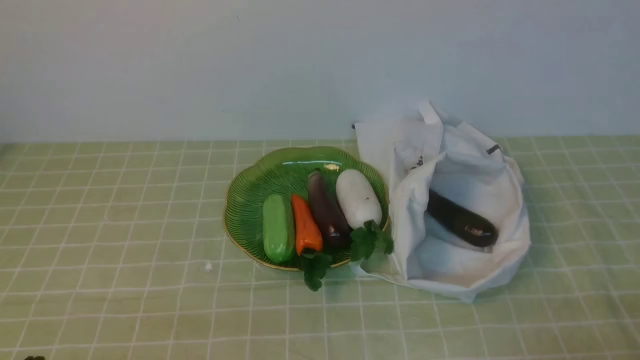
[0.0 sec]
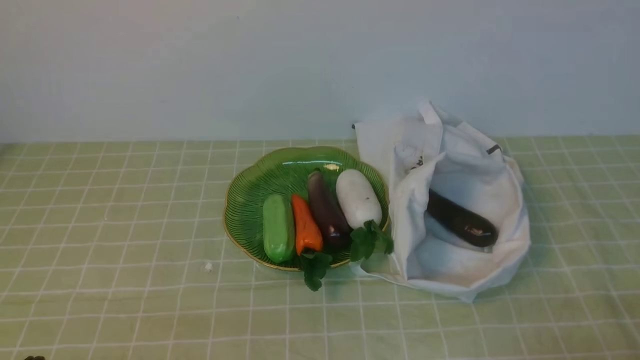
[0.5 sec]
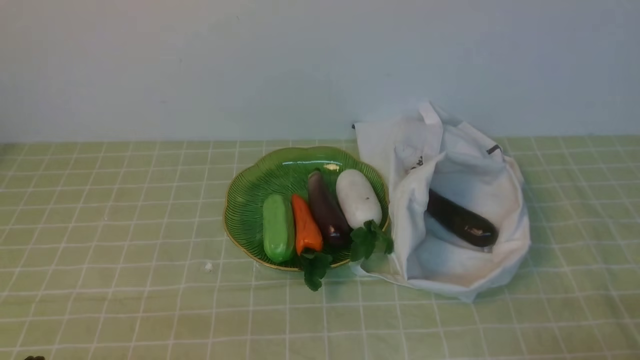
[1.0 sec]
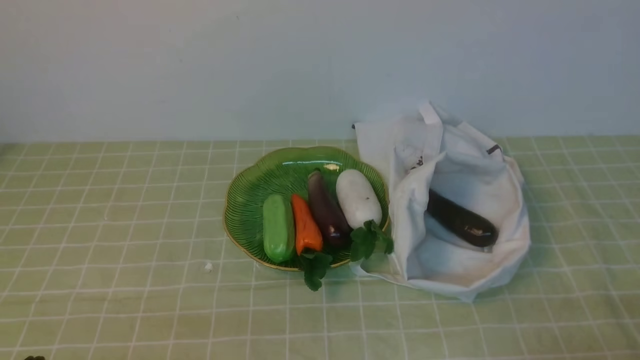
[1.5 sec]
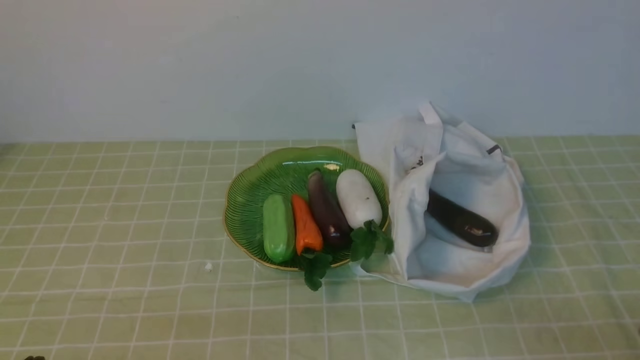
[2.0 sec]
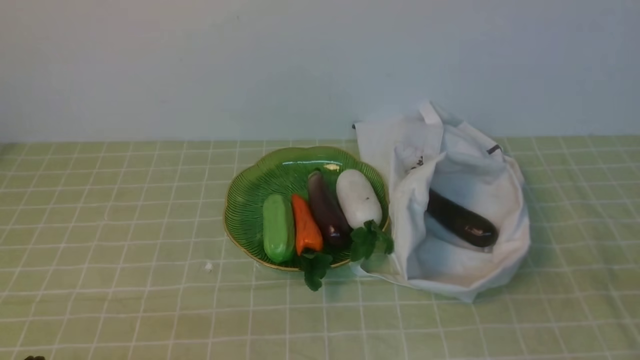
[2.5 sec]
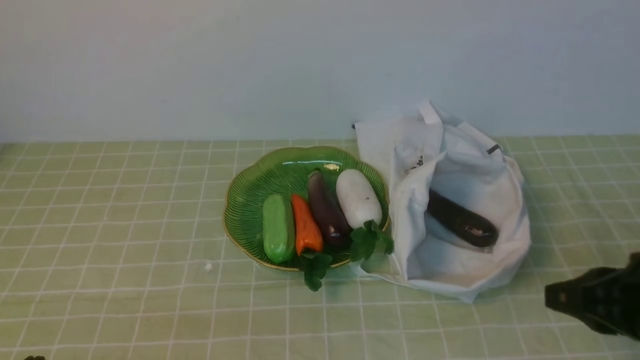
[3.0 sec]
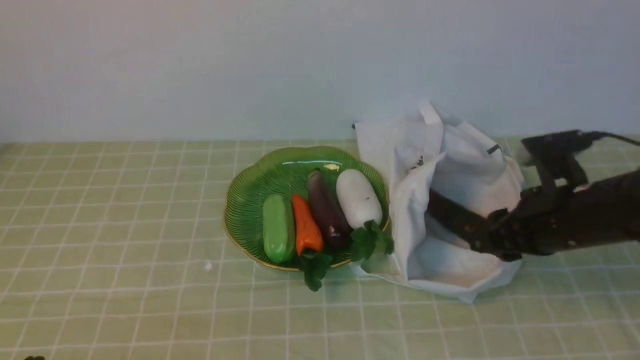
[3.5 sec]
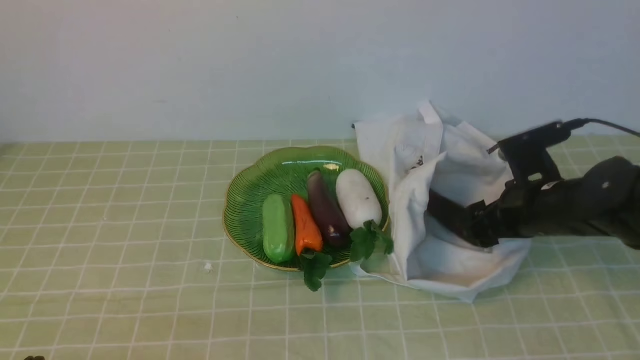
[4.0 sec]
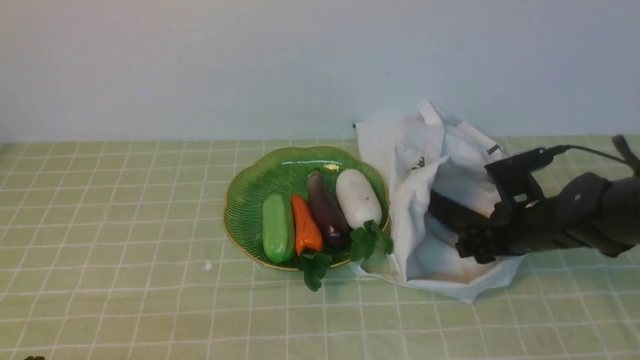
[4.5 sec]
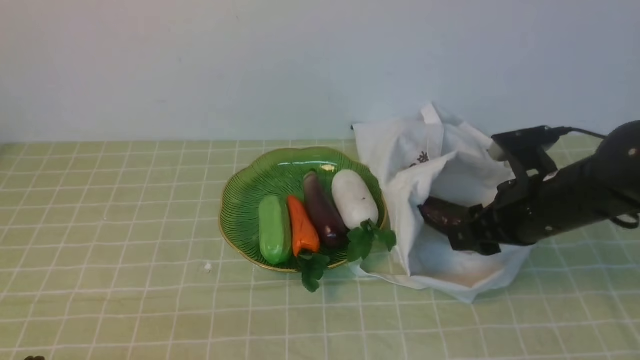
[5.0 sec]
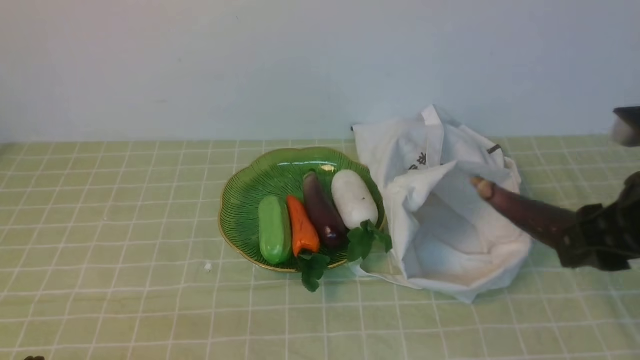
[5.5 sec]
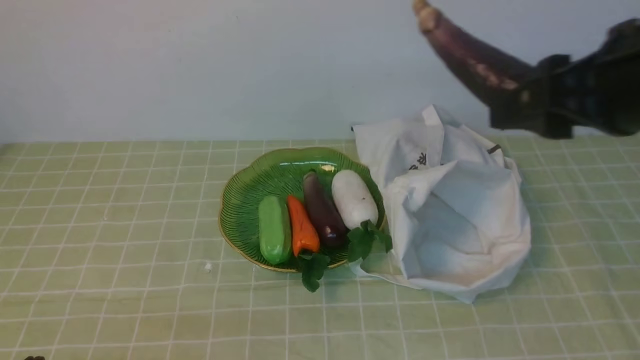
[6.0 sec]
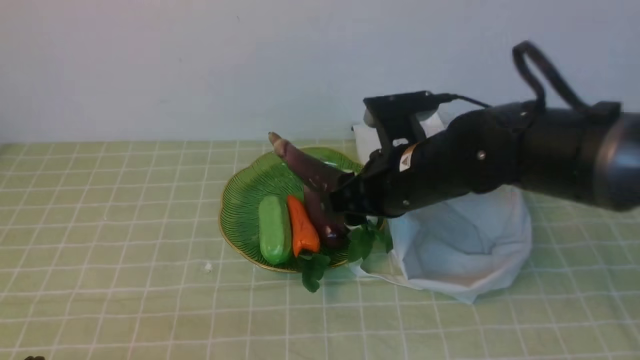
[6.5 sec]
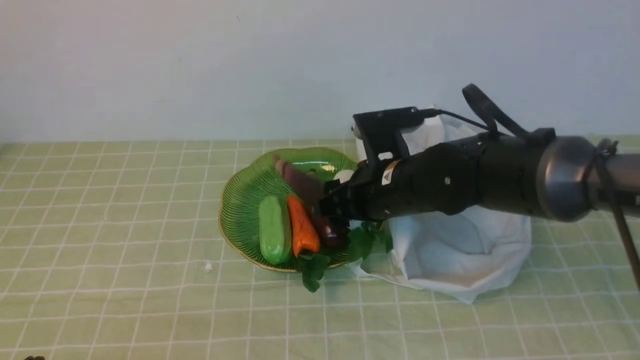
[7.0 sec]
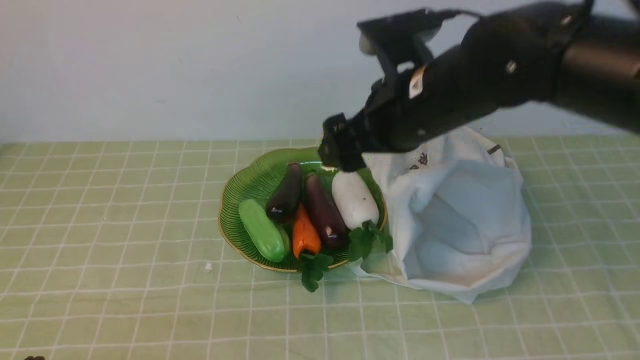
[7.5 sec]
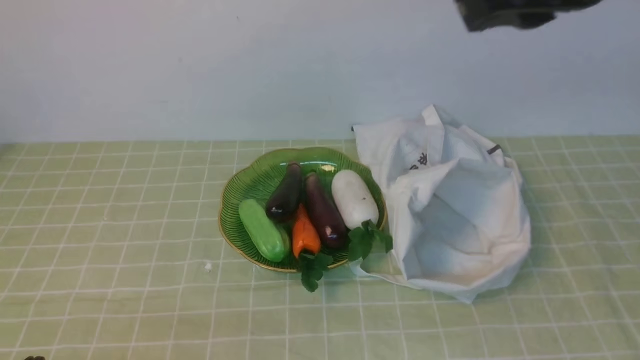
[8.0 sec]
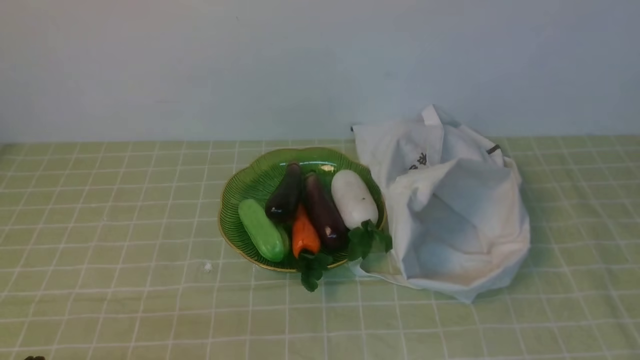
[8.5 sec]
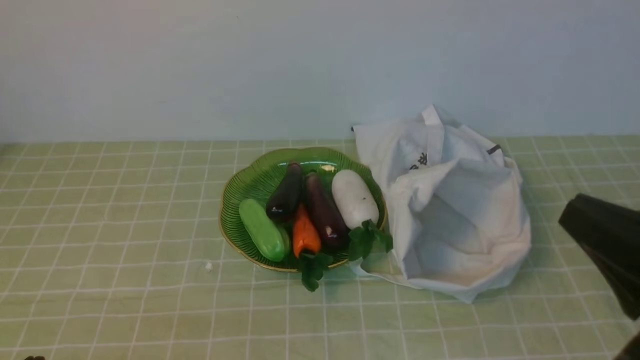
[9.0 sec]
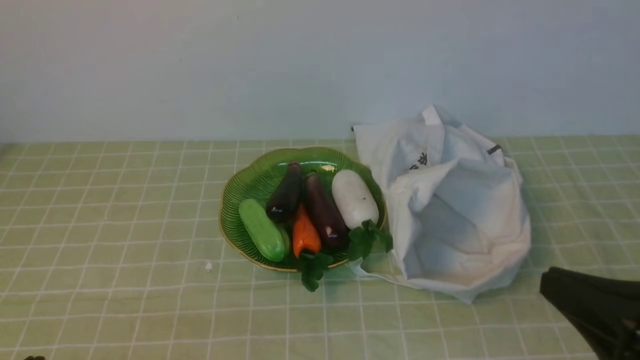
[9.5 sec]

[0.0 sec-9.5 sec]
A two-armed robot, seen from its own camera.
Task of the whole recording: take vegetables from bag on green coffee tablecloth place on plate.
Step, 0.0 sec to 4.5 sec: Grasp the eggplant with right gripper.
Step, 5.0 sec to 7.0 sec: Place the eggplant on the plate with right gripper.
2.0 sec to 4.0 sec: The right gripper moves forward, approximately 30 cm, and opens its fingers.
4.0 sec to 5.5 sec: The right gripper shifts about 20 cm upward and backward.
5.5 sec to 7.5 sec: The right gripper shifts about 20 cm to the left and forward.
7.5 sec to 9.5 sec: The right gripper travels backward and to the right by approximately 25 cm, and closes.

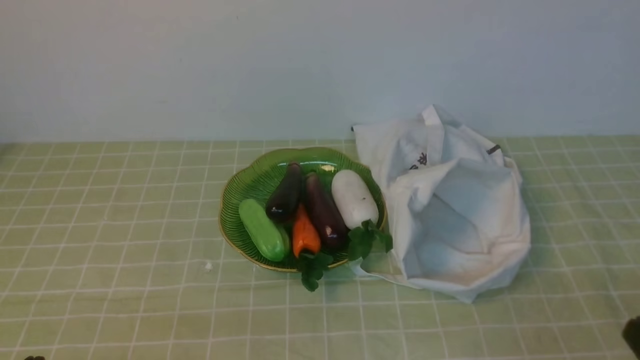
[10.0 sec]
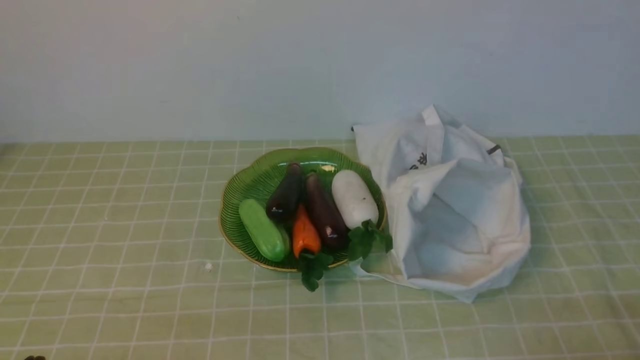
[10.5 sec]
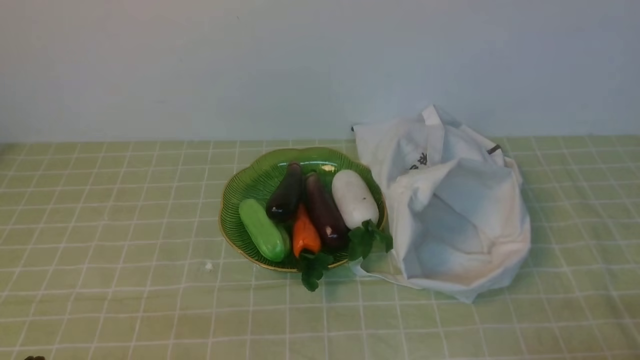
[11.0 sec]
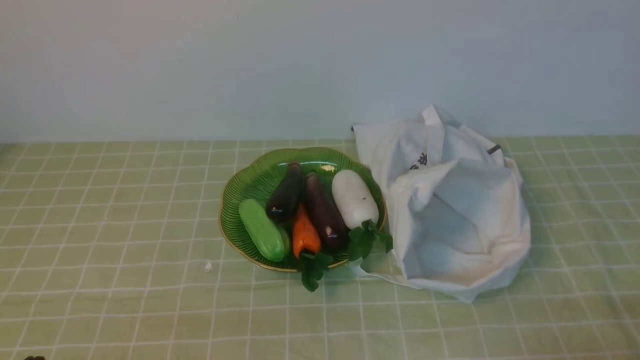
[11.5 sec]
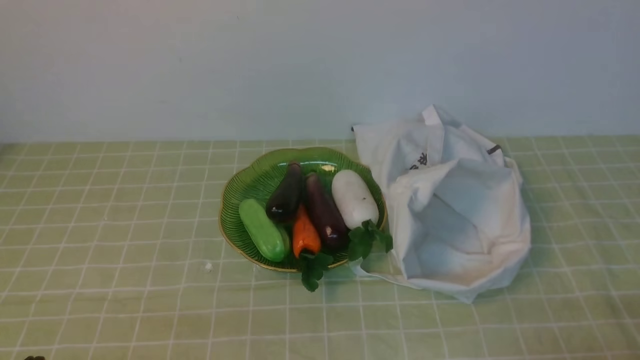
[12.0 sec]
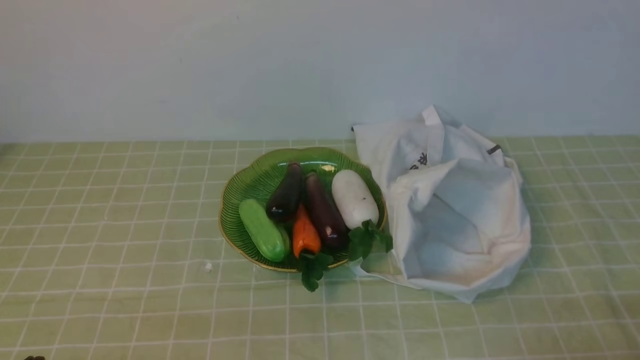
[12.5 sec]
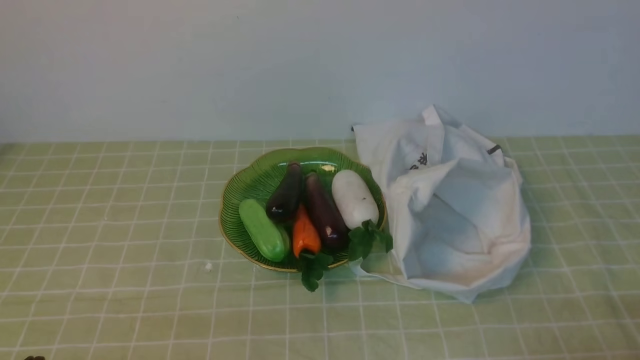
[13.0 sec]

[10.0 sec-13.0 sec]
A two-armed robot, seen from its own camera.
Task of the whole recording: take vegetables from bag on green coffee tablecloth place on plate.
11.5 sec to 13.0 sec: The two grippers keep their place.
